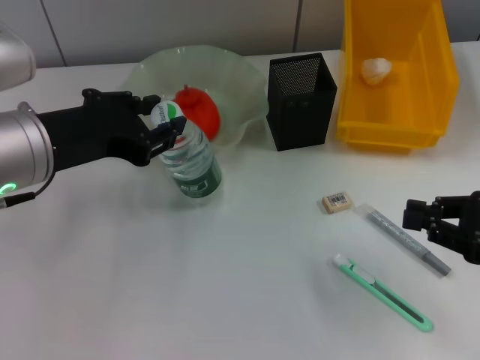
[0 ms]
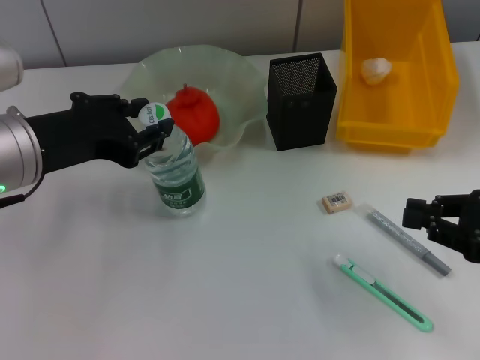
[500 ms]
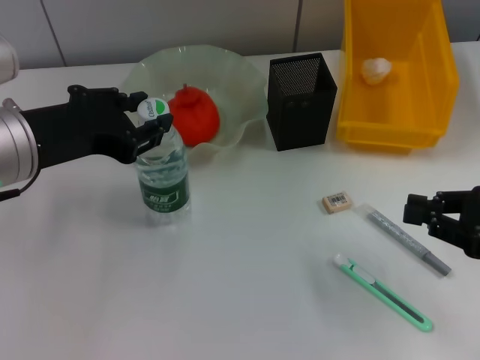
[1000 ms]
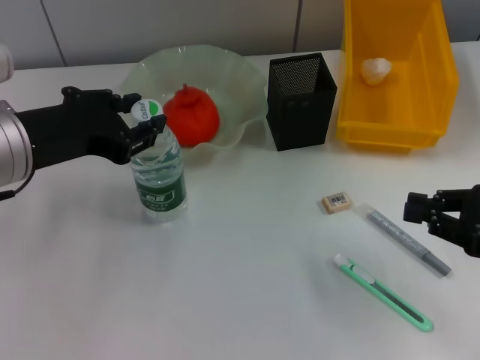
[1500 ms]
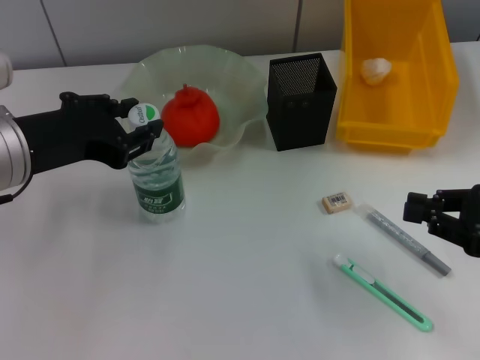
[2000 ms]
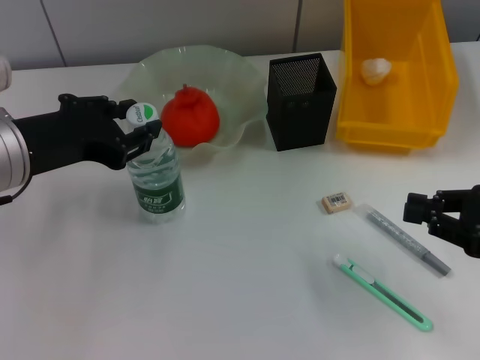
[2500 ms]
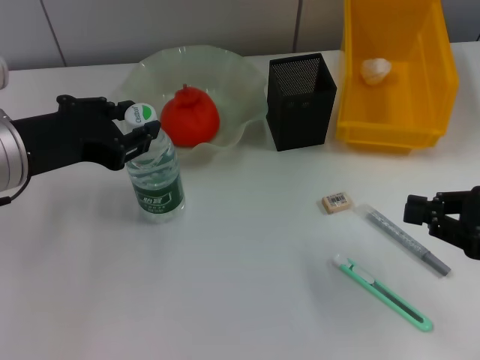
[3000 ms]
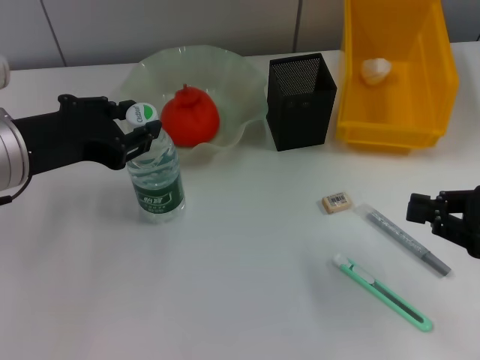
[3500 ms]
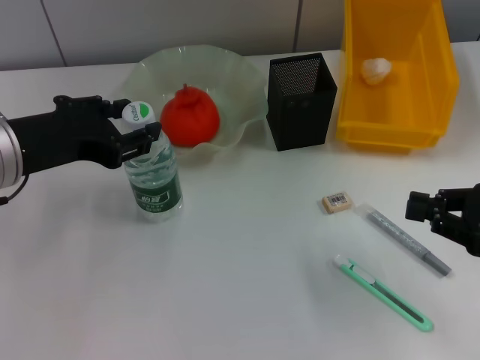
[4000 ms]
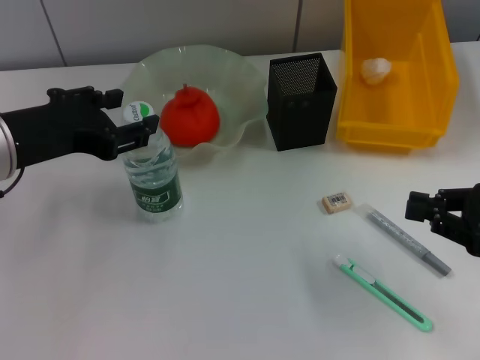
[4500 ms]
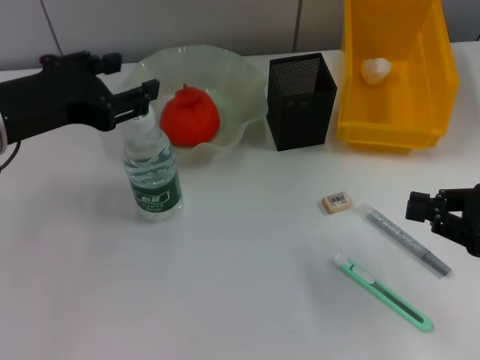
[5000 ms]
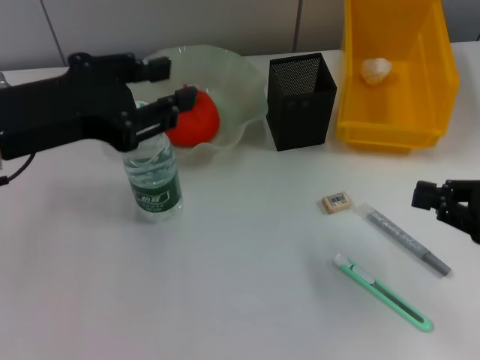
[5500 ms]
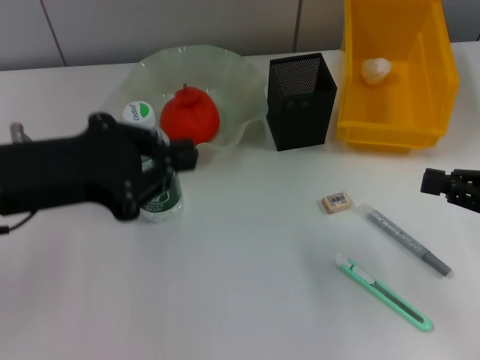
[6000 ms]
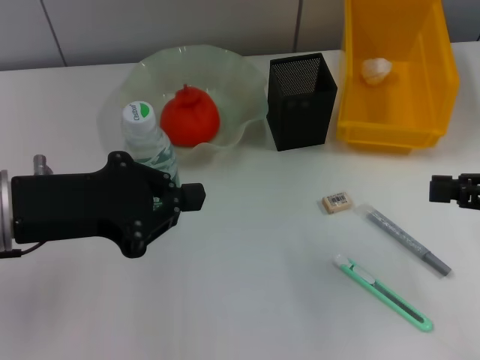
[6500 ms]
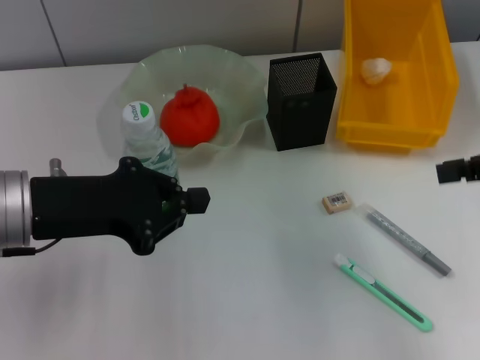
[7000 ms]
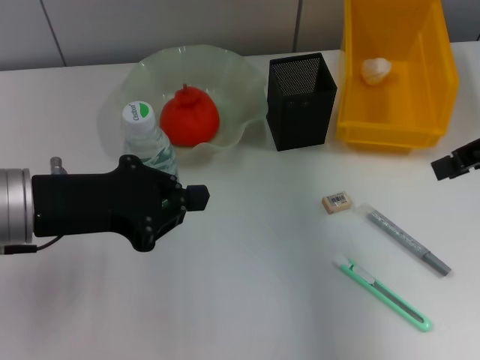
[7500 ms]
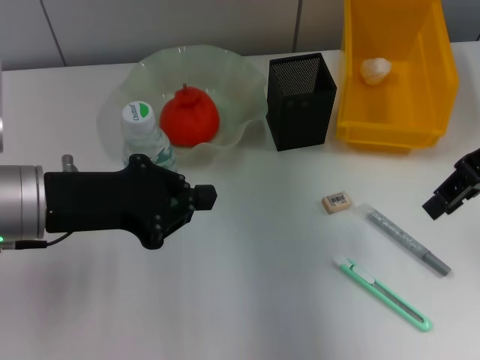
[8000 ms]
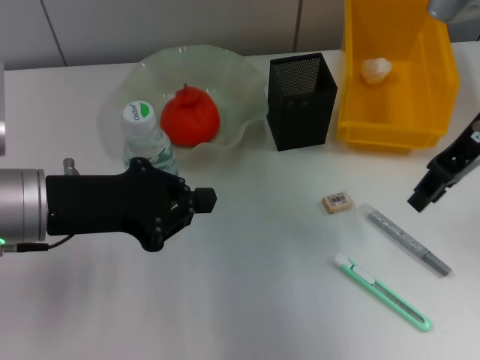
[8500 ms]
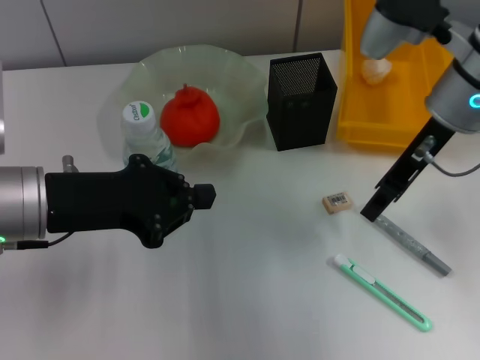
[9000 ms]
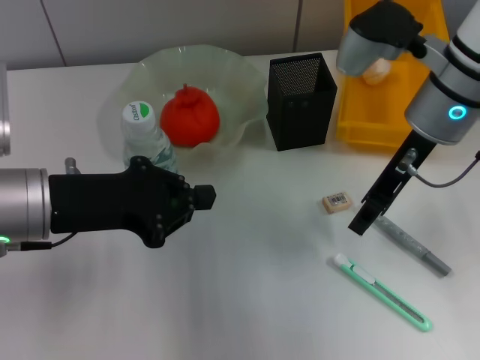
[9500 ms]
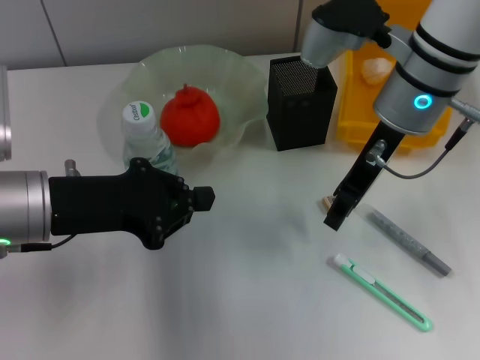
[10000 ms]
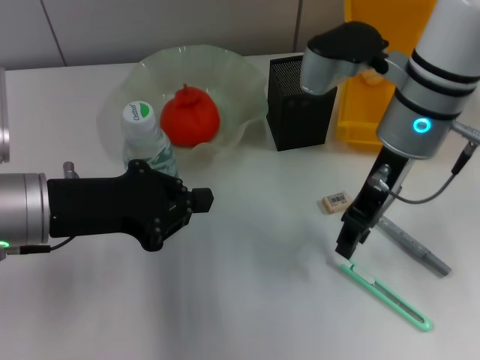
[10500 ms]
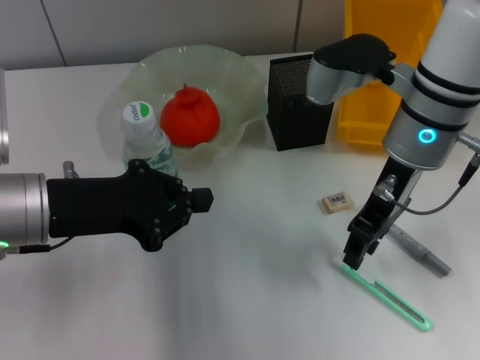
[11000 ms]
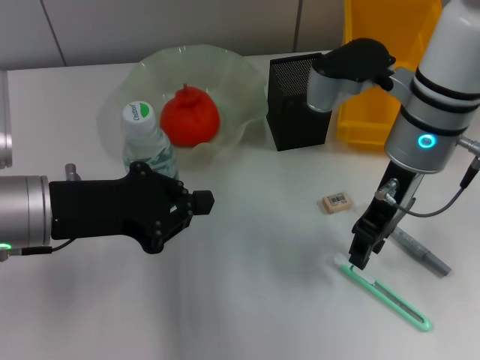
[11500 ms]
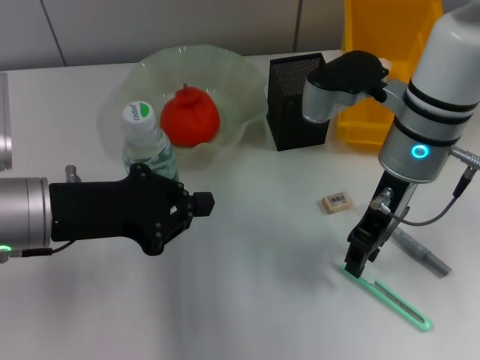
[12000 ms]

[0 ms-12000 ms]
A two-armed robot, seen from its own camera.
Step, 0 ms to 4000 ms: Place the water bottle on the table with the left hand.
0 ms to 2000 ms: The grippers stay close to where they were, moving slightly.
2000 ms to 4000 ms: Neither gripper changes place.
6000 ms to 8000 ms: The right gripper goes about 20 cm upward, forward and to the left.
8000 ms to 10000 ms: The right gripper is displaced to the left by about 15 cm.
10000 ms to 12000 ms: The grippers move only a little.

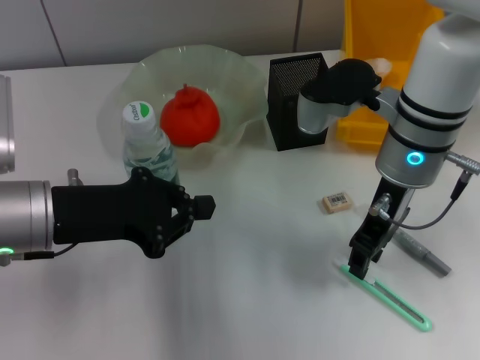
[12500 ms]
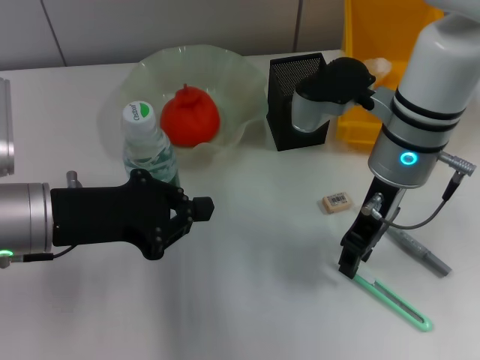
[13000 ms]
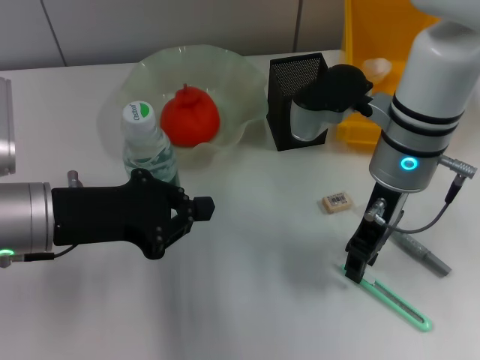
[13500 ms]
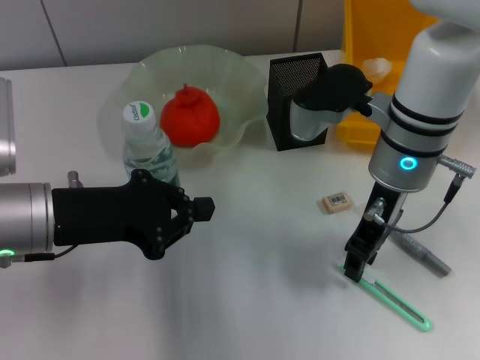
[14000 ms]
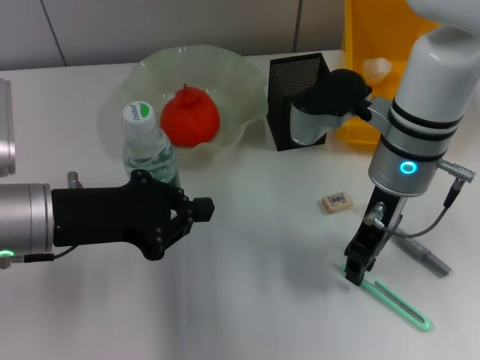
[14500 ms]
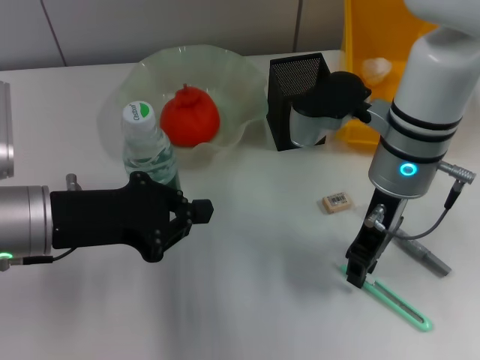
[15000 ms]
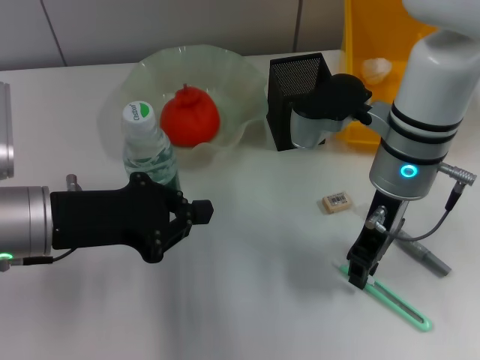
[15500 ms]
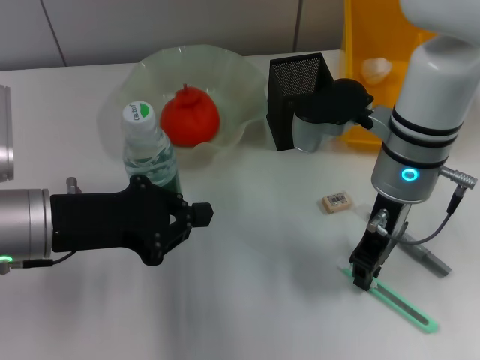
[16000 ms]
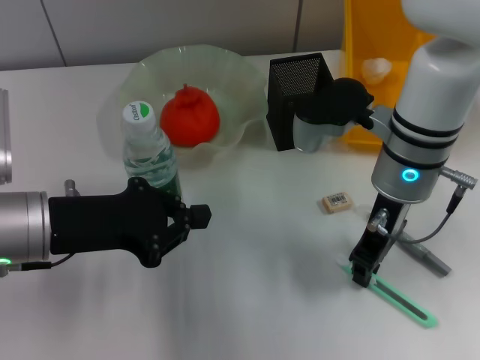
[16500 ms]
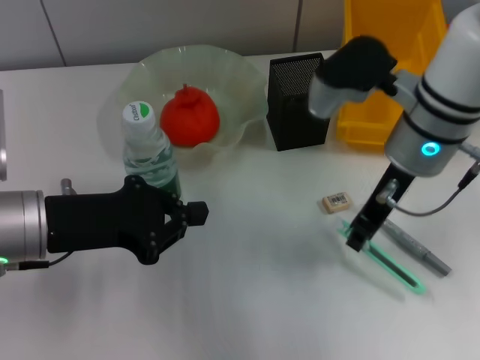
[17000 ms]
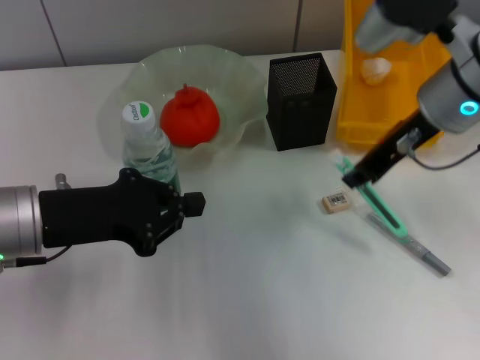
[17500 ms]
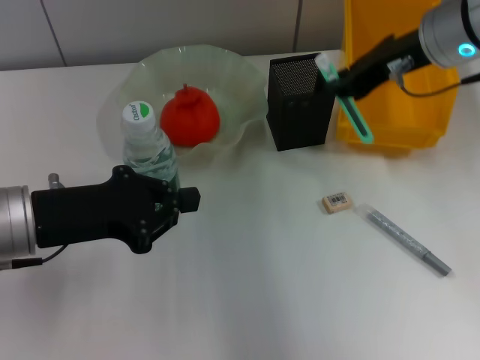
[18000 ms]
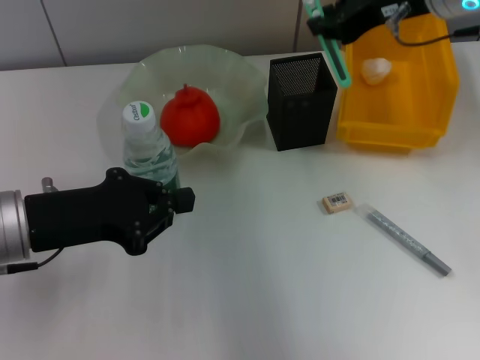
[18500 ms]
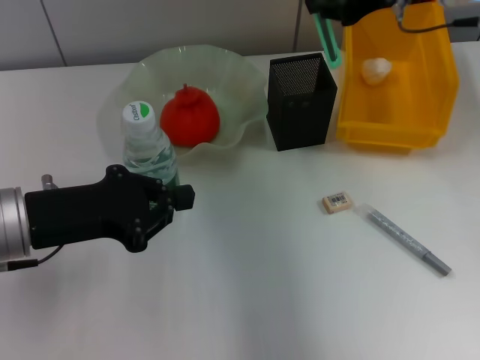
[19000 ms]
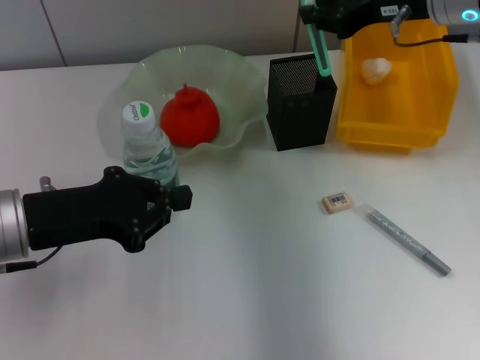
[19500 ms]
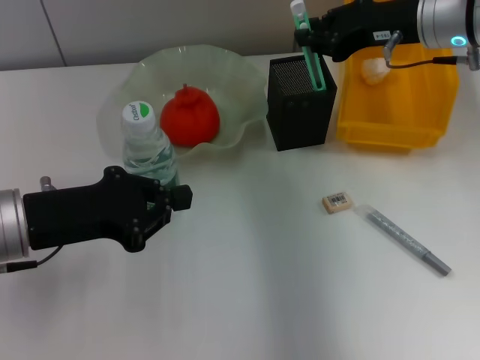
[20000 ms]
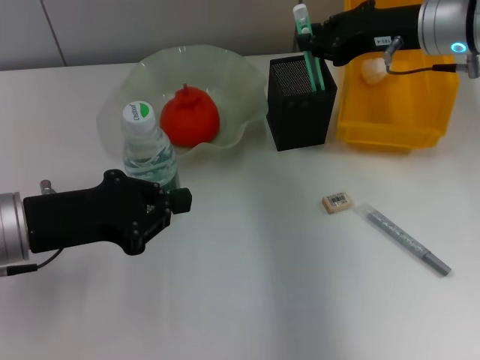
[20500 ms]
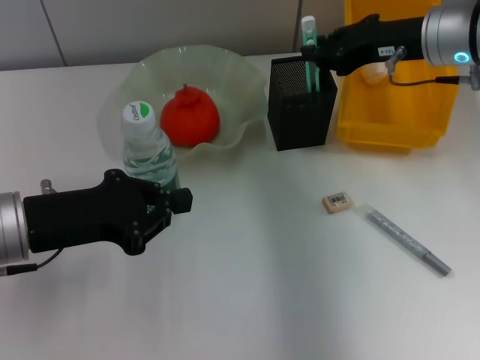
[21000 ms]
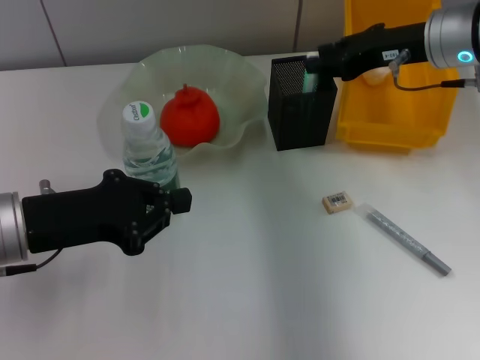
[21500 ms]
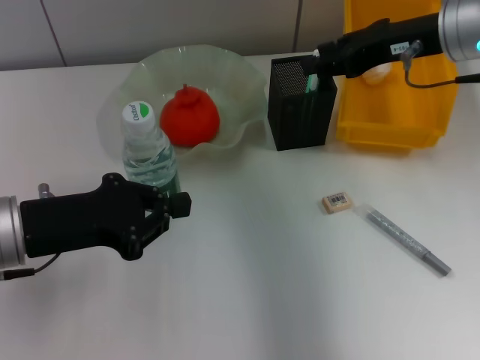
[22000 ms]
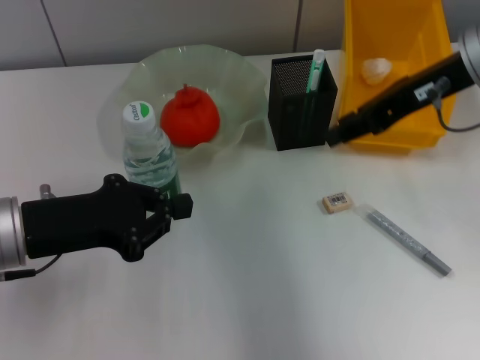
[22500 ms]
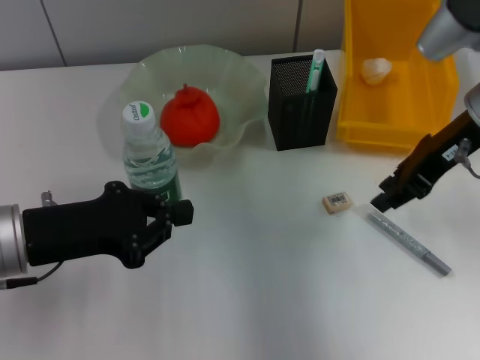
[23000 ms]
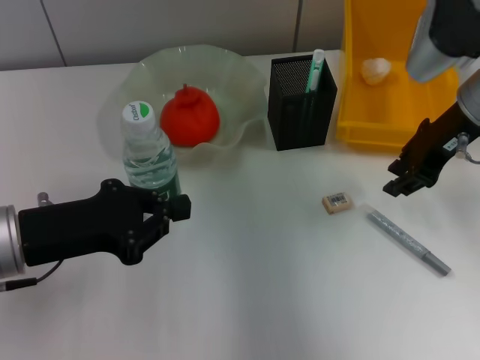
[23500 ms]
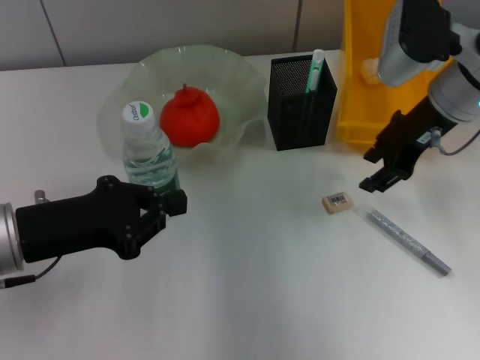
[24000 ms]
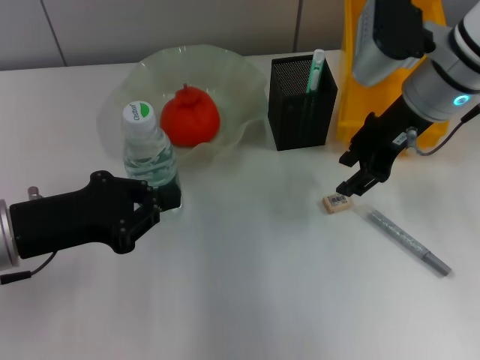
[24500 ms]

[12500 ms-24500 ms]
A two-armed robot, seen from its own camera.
Step, 12500 ms to 16500 ms: Grab the blue utility knife with the right hand.
Step, 17000 ms to 22000 ms: Place the blue utility knife into the pen holder with the right hand.
12500 ms to 14500 ms: Both grippers stay about where they are.
14500 ms to 16500 ms: The two grippers keep their place.
16500 ms to 18500 ms: The right gripper moves upward and to the right, about 15 cm.
18500 ms to 20500 ms: The right gripper heads downward, covering about 5 cm.
20500 ms to 22500 ms: The right gripper shifts roughly 5 cm backward.
22500 ms to 24500 ms: The right gripper goes roughly 5 cm downward.

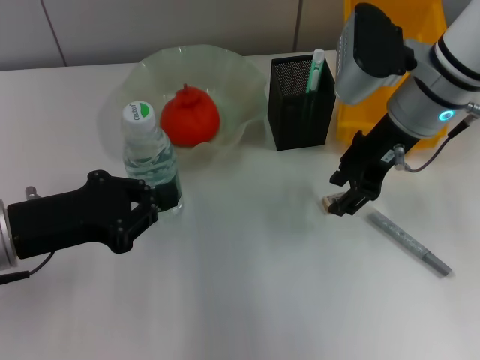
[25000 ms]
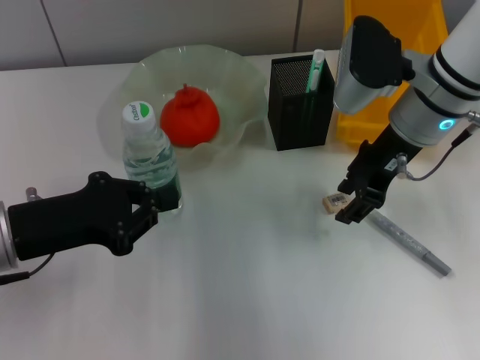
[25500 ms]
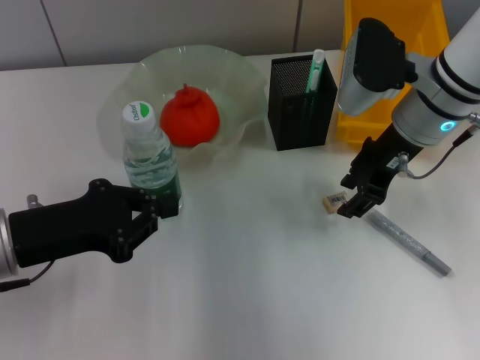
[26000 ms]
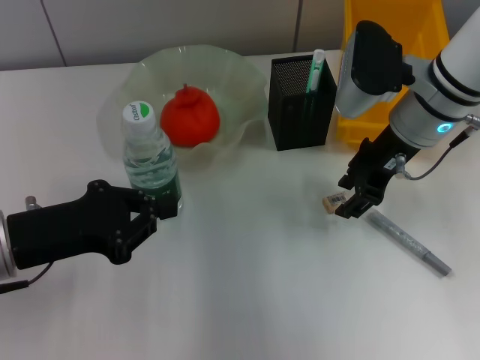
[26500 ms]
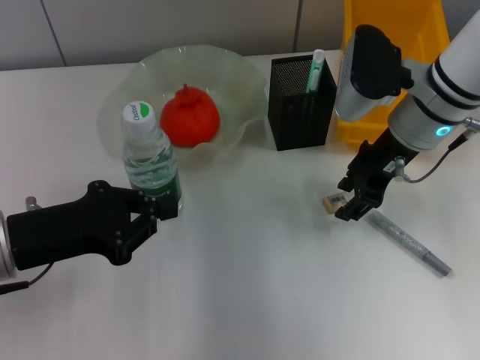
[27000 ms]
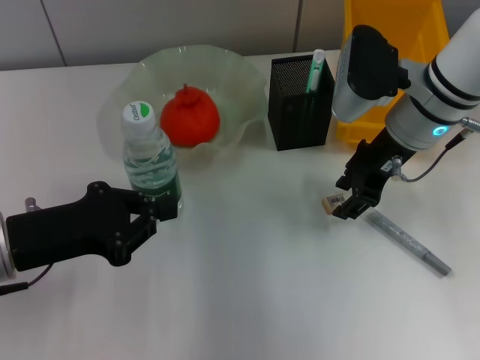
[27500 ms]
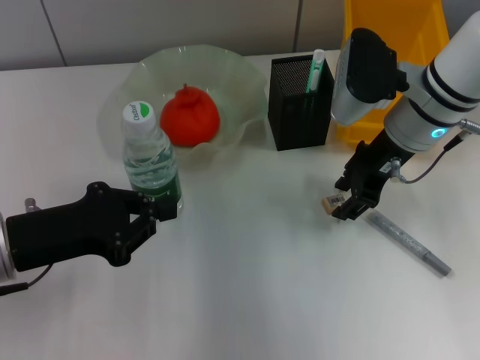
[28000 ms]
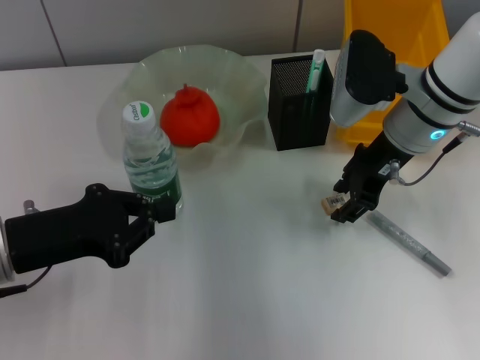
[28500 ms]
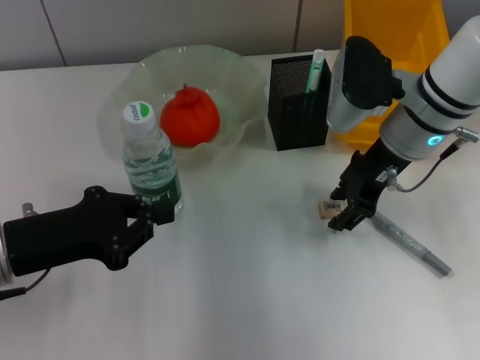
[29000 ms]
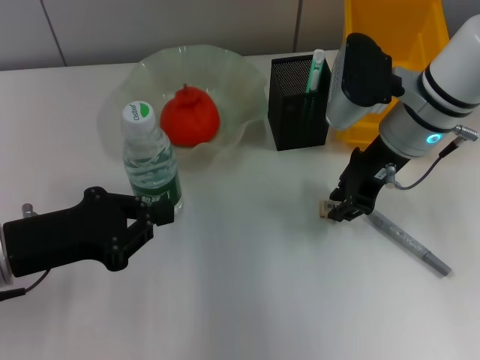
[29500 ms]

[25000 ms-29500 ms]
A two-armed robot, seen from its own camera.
25000 ms to 27000 ms: The grippers stay close to where they were, moving slightly.
27000 ms to 29500 ms: Both grippers stay put.
